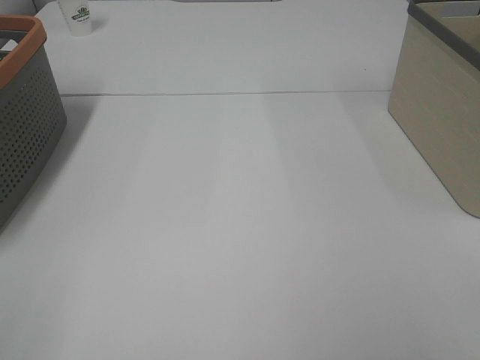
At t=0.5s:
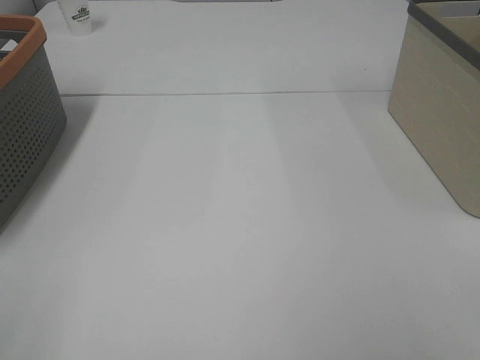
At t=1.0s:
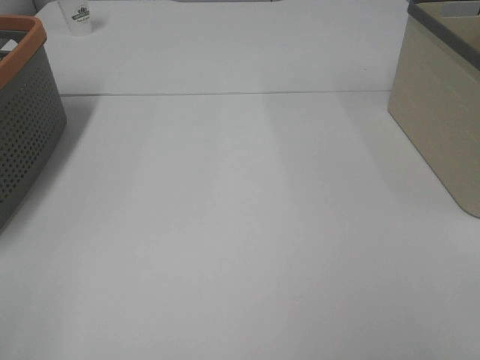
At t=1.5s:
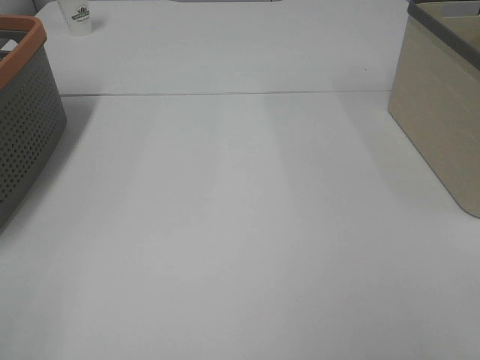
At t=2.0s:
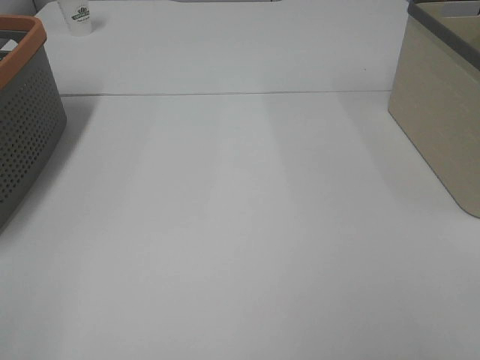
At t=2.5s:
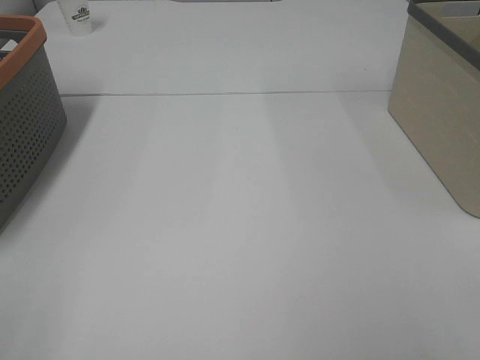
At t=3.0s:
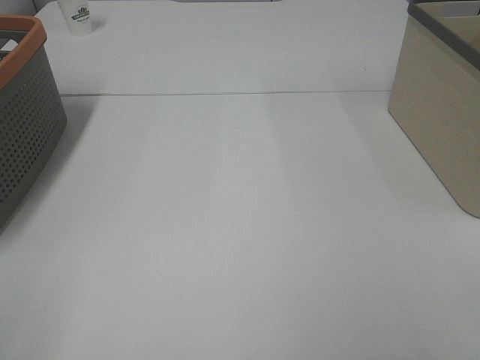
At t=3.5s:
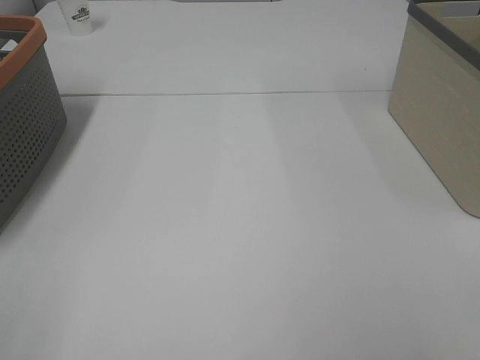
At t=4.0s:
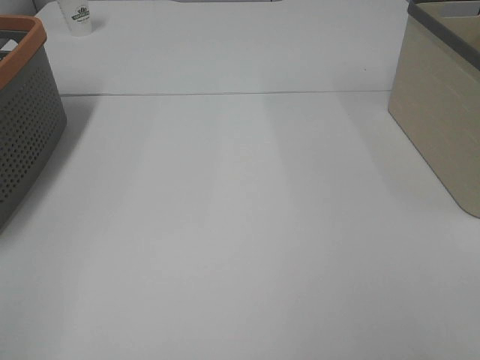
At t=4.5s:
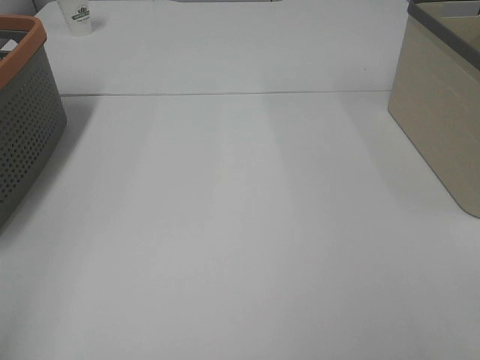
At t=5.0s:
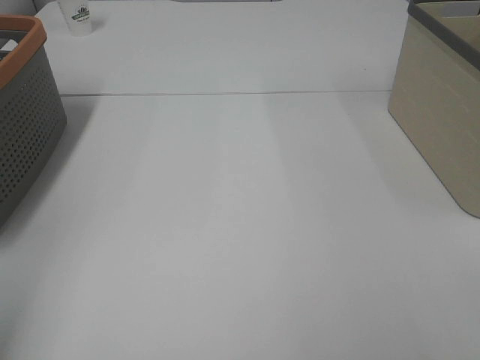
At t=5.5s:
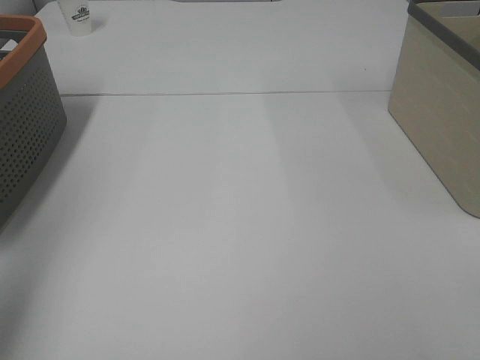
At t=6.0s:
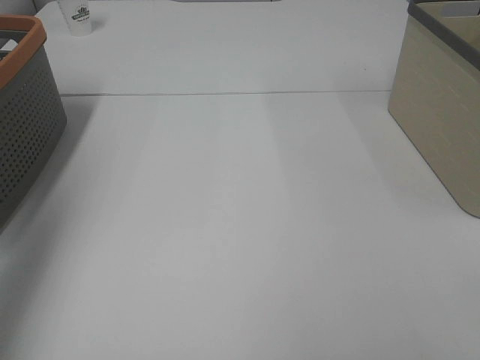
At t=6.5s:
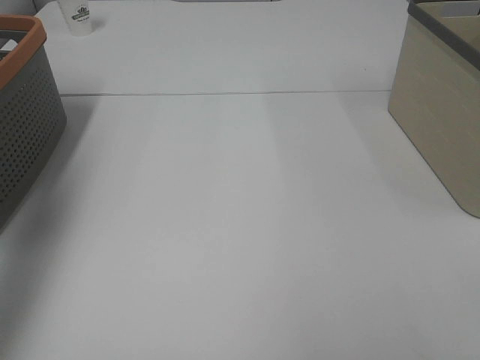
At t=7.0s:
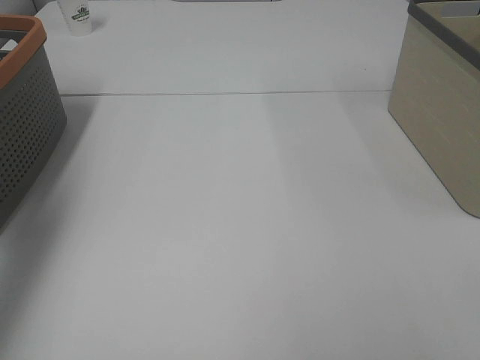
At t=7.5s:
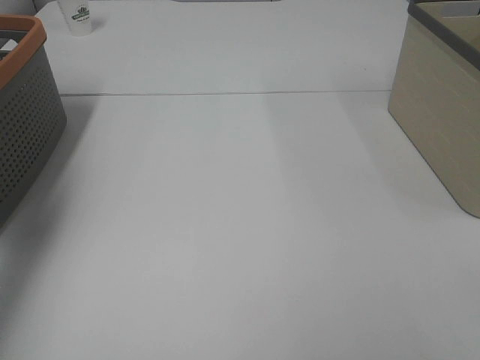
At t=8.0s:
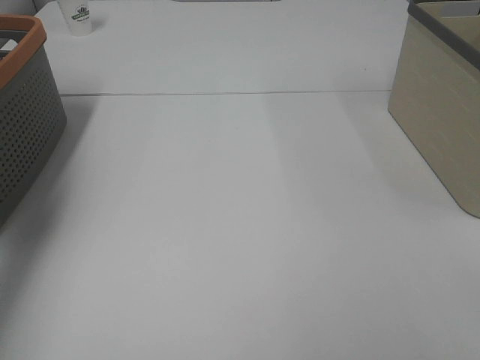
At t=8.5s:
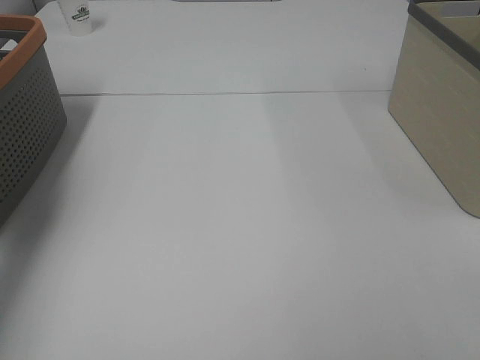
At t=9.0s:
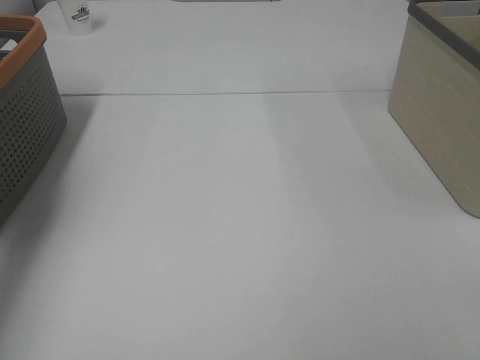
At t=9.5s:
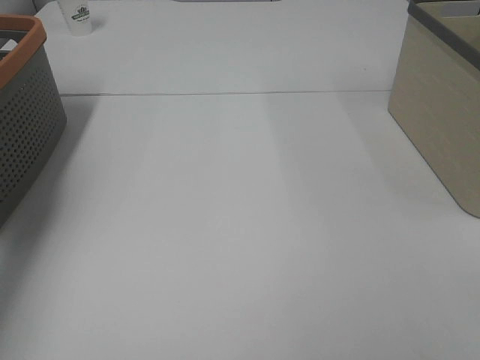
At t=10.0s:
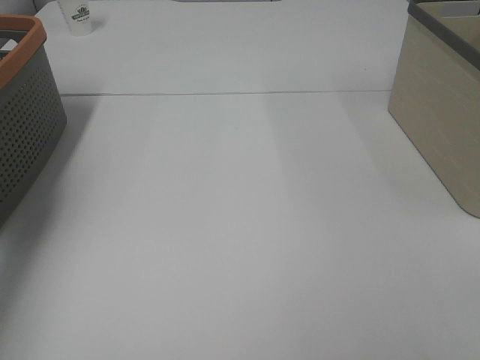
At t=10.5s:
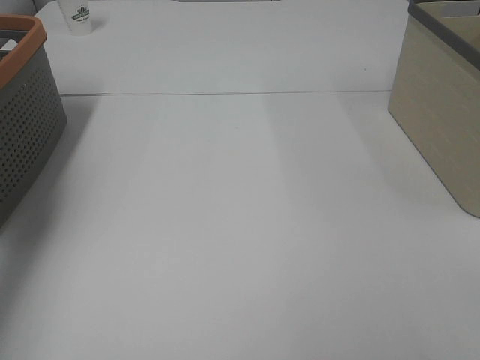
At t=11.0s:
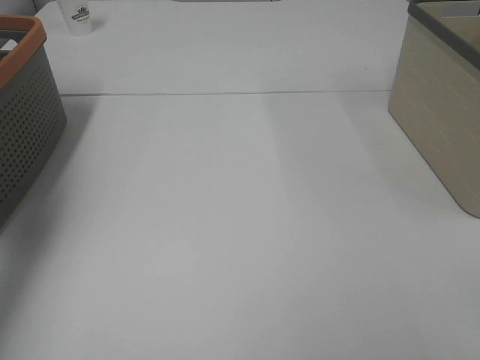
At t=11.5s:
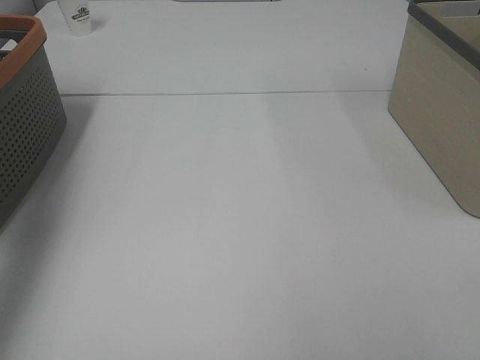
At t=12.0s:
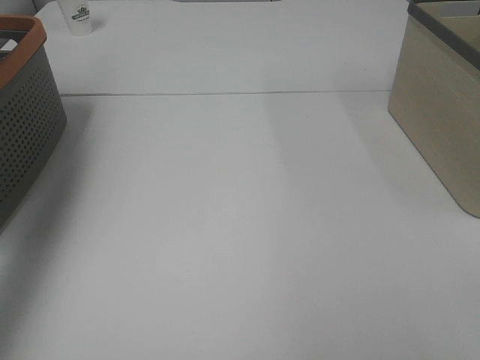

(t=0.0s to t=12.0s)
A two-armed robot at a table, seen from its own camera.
Task of the whole recording: Remove the towel and place it.
t=0.0s - t=2.0s: Both grippers stay about where they are.
t=4.0s - t=6.0s: The left gripper moves forward, about 20 cm.
t=10.0s - t=12.0s: The left gripper travels upward by roughly 25 cm.

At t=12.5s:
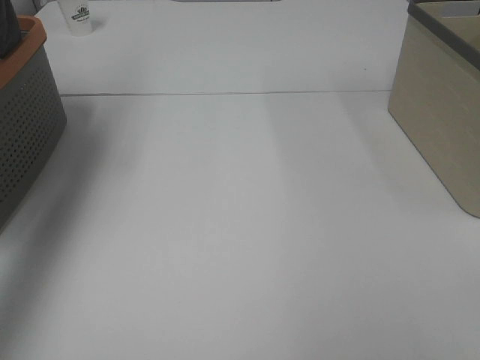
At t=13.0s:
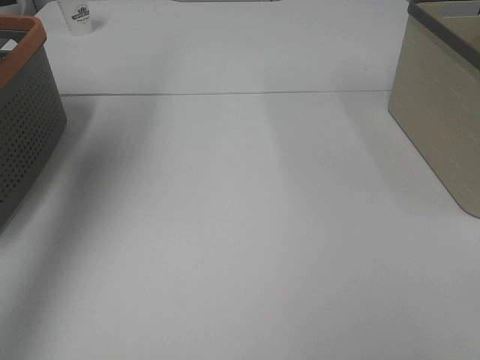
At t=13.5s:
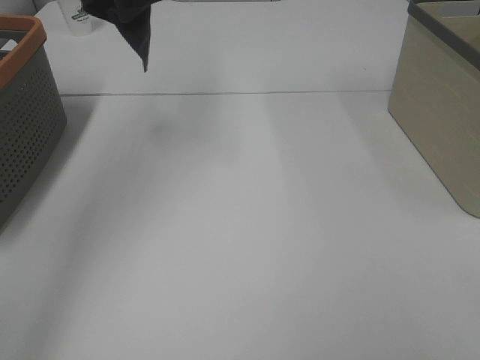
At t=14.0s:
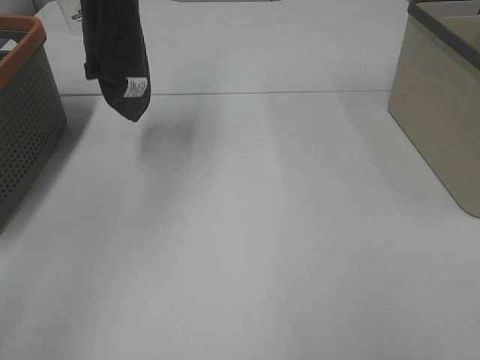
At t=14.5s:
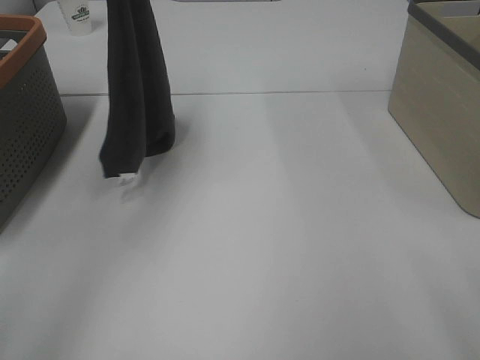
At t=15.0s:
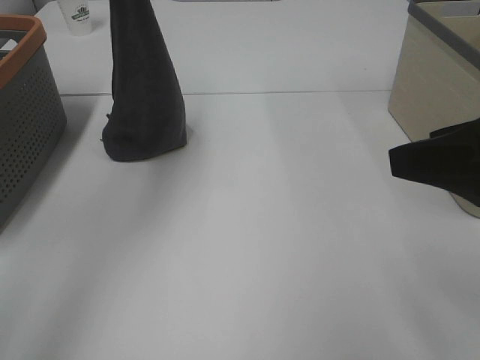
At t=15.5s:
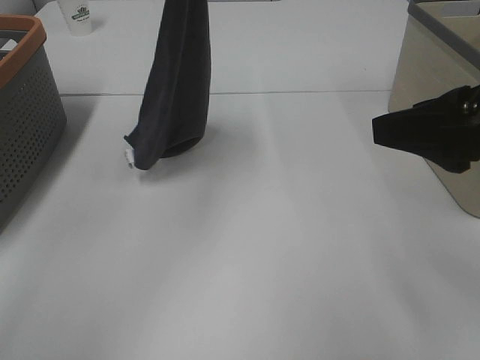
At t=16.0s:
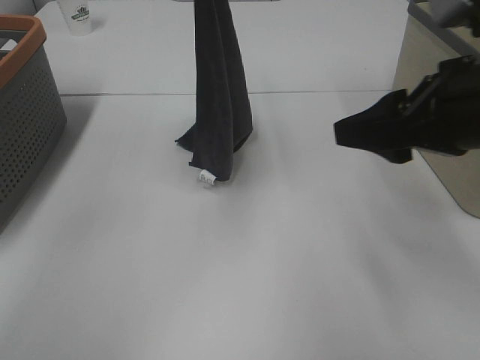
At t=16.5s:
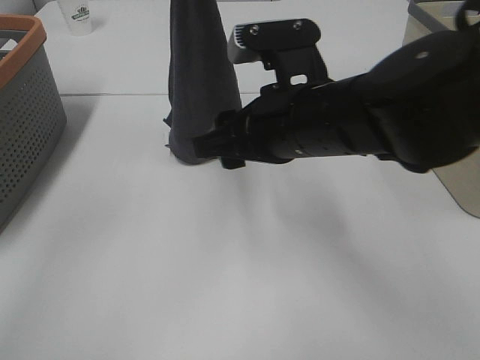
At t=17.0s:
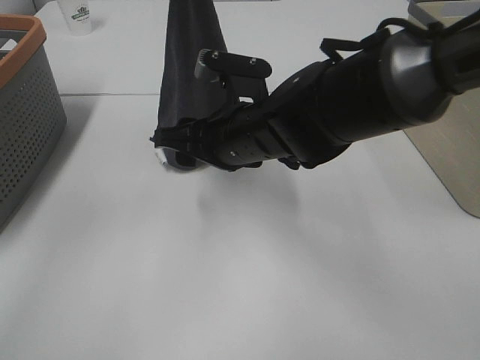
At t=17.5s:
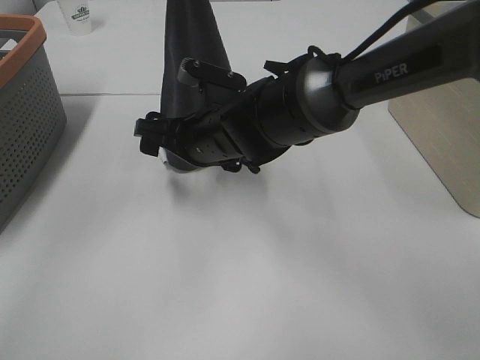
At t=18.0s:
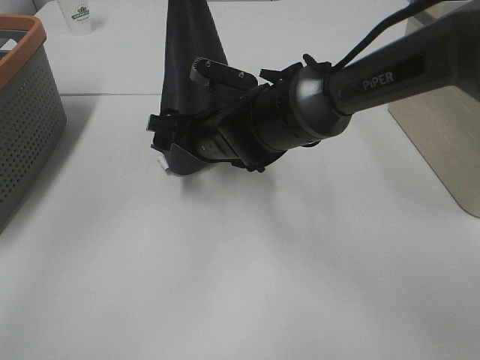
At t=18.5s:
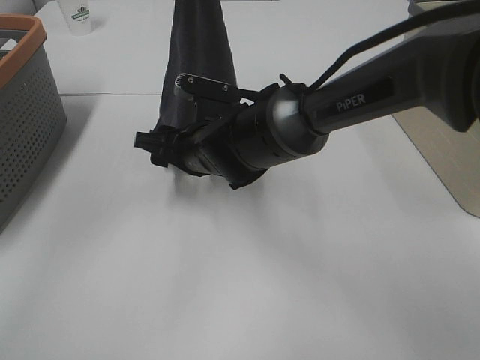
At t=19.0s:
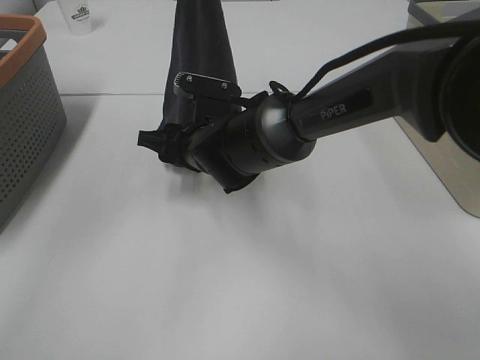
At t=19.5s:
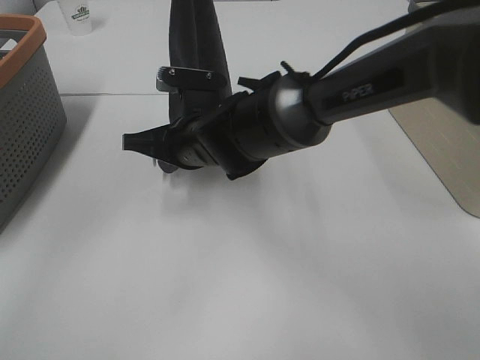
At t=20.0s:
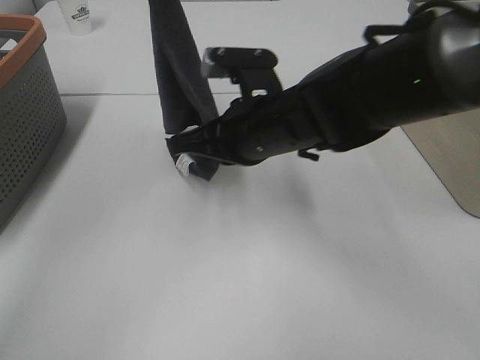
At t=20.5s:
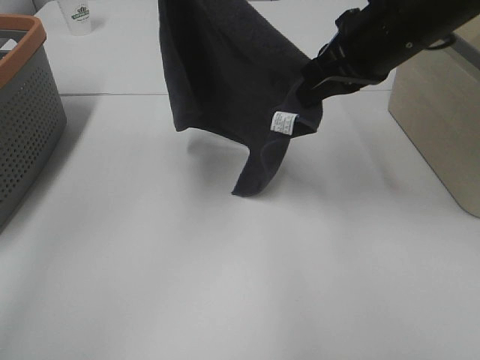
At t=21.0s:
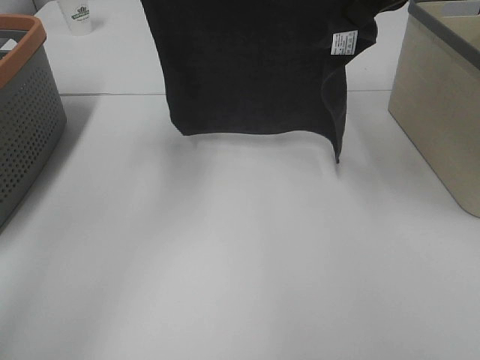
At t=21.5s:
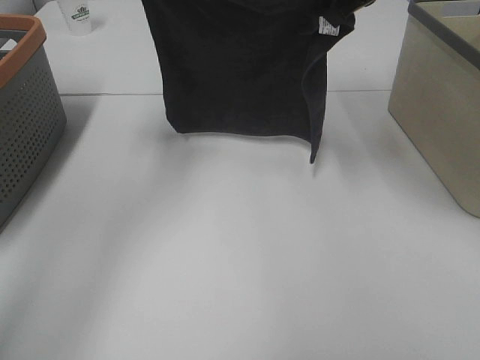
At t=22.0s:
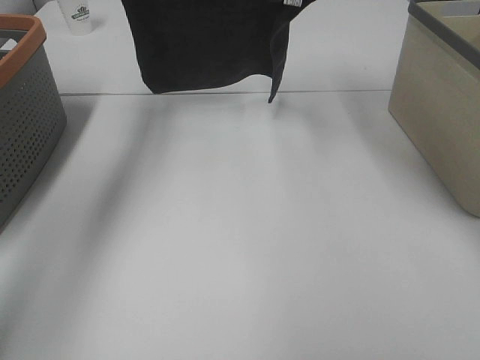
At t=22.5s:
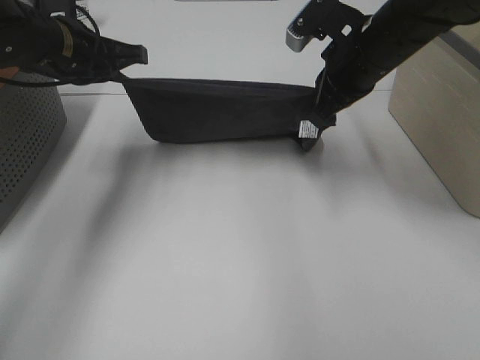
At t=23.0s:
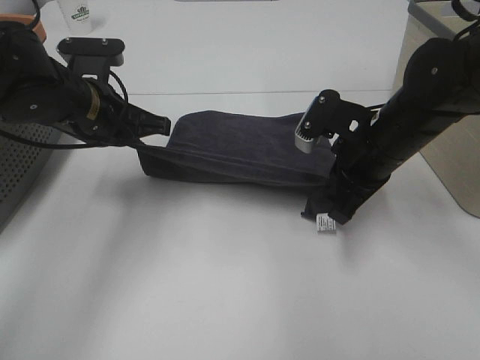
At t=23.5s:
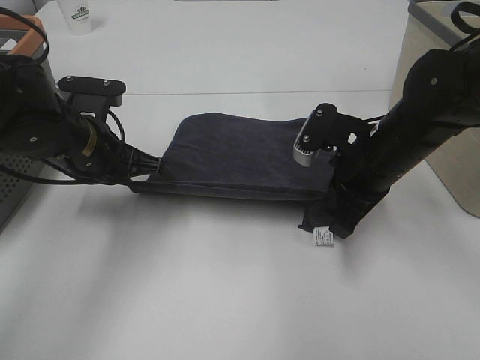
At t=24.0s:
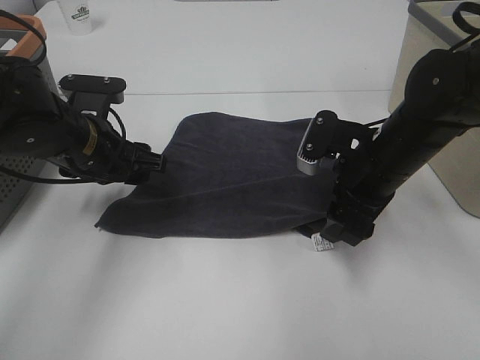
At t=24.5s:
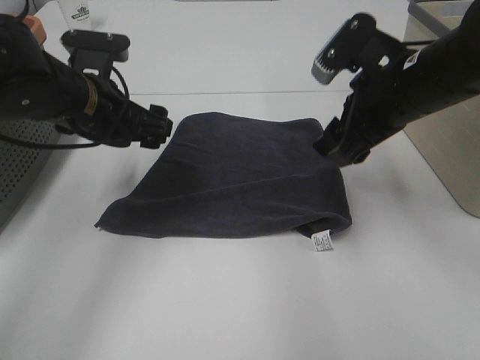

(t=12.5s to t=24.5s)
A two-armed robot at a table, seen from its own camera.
Task of the whole recording: Remove the towel and place it.
Step, t=13.0s - t=17.0s: Right hand: grab a corner of the grey towel and straighten it.
Step, t=17.5s - t=19.0s: Left hand: spread the grey towel flat on the table.
Step, t=17.5s - t=19.0s: Right hand: spread the grey towel flat on the table.
t=12.5s - t=14.5s: The left gripper shifts roughly 25 cm downward and to the right, while the right gripper shifts some 10 cm forward.
t=14.5s - t=16.5s: The right gripper goes approximately 25 cm to the left, forward and downward. Meanwhile the left gripper travels to the right by some 10 cm.
t=16.5s - t=18.5s: The right gripper travels downward, to the left and forward by roughly 15 cm.
t=18.5s - t=20.5s: The left gripper moves approximately 5 cm; the right gripper goes approximately 25 cm to the right and upward, and closes its fingers.
t=20.5s - t=22.5s: The left gripper heads downward and to the left, covering approximately 20 cm, while the right gripper is displaced downward and forward by approximately 10 cm.
t=22.5s - t=24.5s: Both grippers move backward, approximately 5 cm. The right gripper goes downward and returns, some 10 cm each way, and opens up. The left gripper opens its fingers.

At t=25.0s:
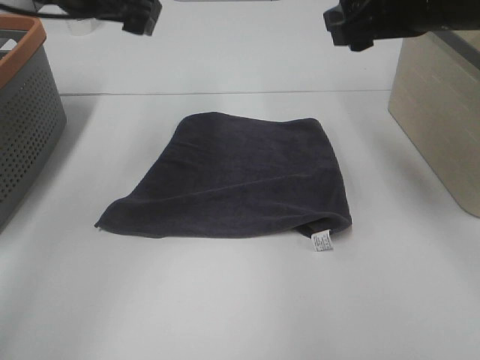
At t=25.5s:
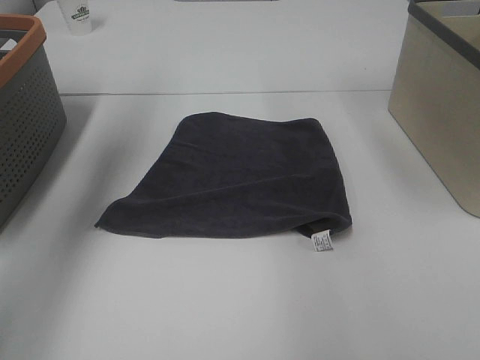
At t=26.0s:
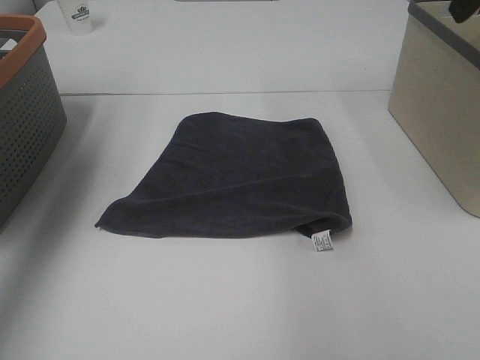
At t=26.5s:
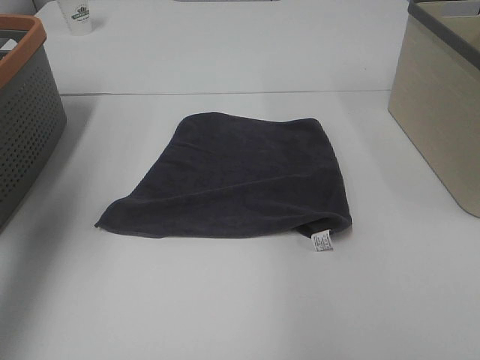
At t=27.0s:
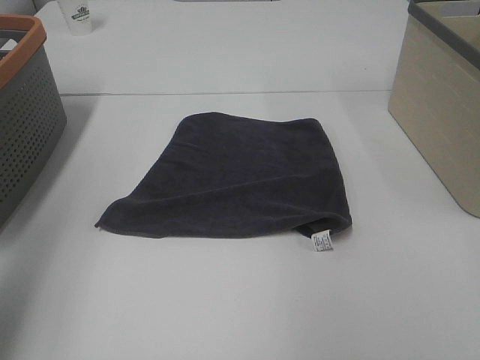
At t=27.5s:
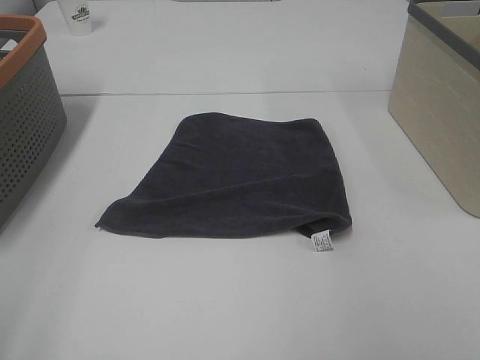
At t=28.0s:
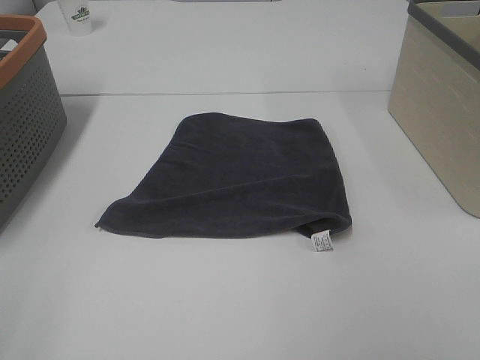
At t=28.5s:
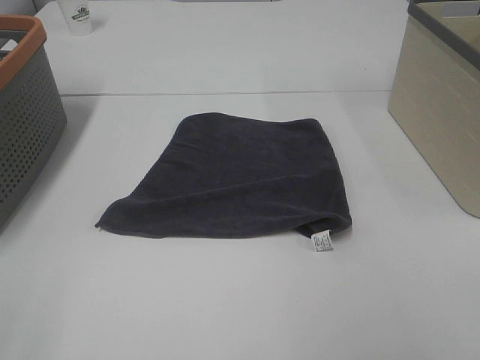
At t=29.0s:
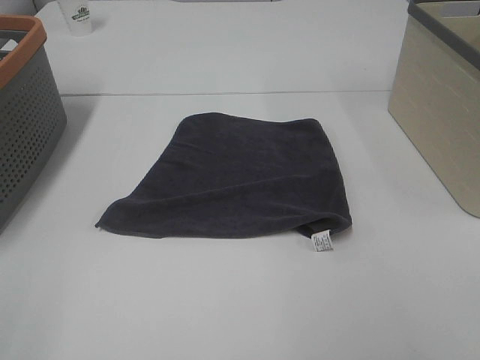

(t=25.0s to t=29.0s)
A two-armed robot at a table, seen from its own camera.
Task of the whole recording: Remove the towel and place it.
t=25.0s - t=27.0s: The right gripper heads backward, to the right and upward, covering some 15 cm. Meanwhile the left gripper shifts roughly 30 cm backward and to the left.
t=27.0s - t=29.0s: The left gripper heads backward and downward, covering approximately 15 cm.
